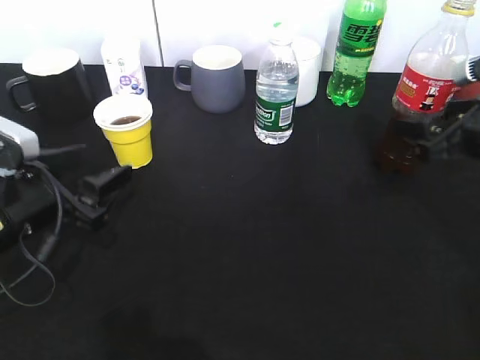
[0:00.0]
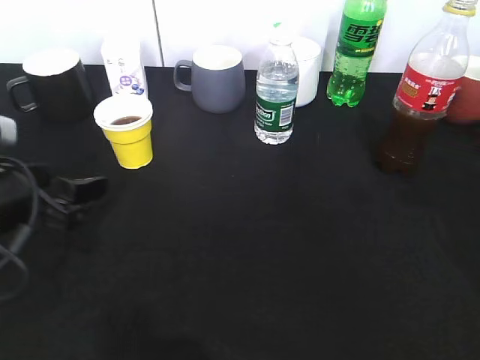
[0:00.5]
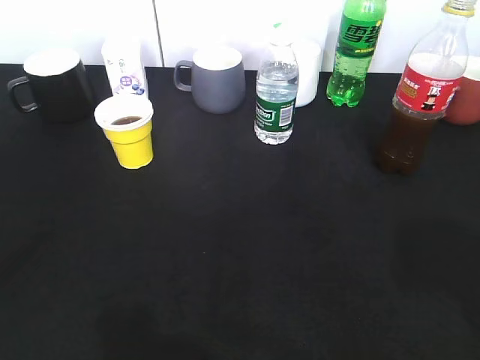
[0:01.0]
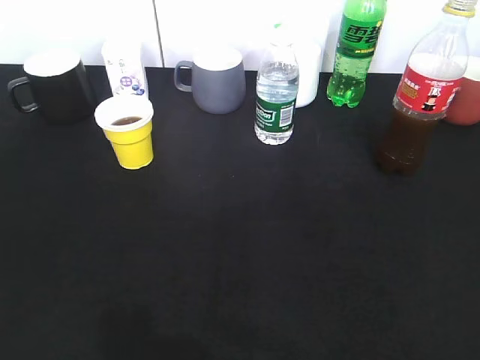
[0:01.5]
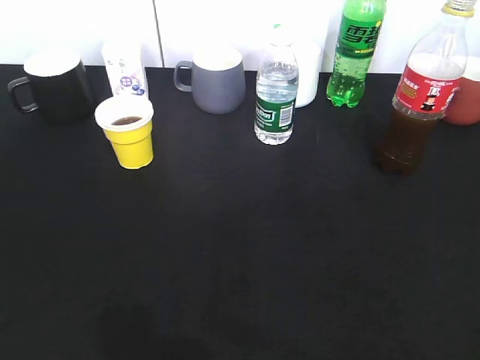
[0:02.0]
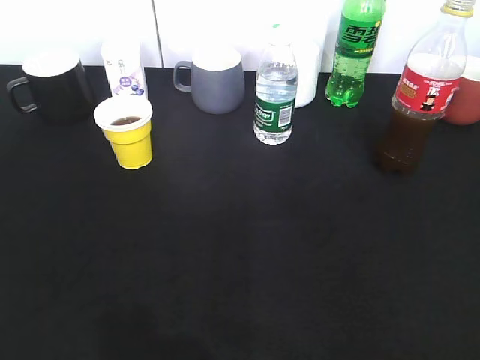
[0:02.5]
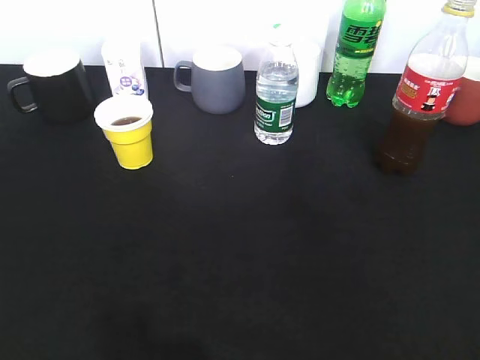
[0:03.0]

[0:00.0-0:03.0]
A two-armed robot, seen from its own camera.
0:00.0 to 0:01.5: The right gripper heads backward, covering about 30 cm; the left gripper moves backward, upward and to the left, approximately 30 cm.

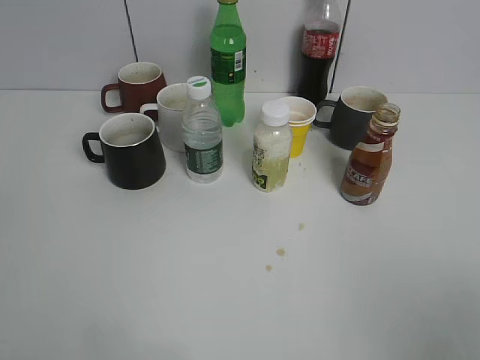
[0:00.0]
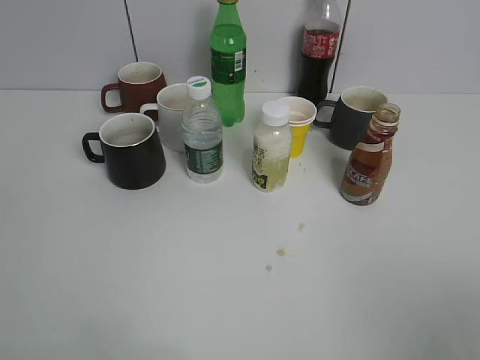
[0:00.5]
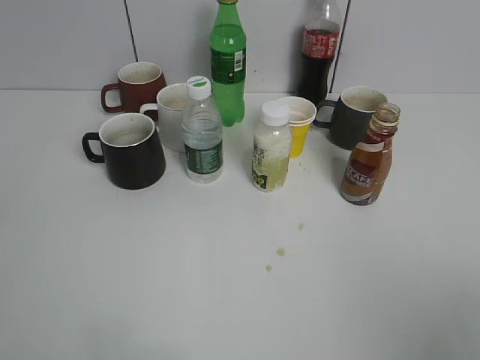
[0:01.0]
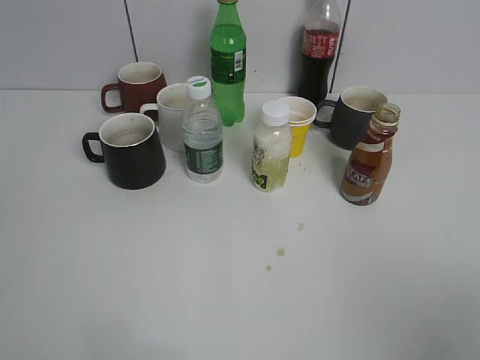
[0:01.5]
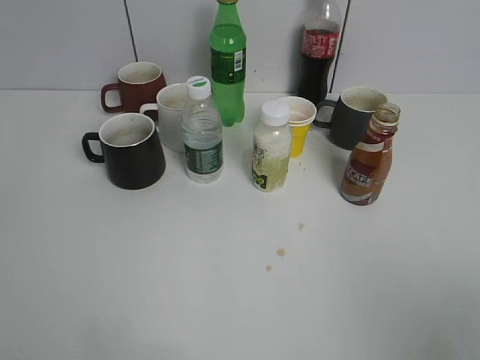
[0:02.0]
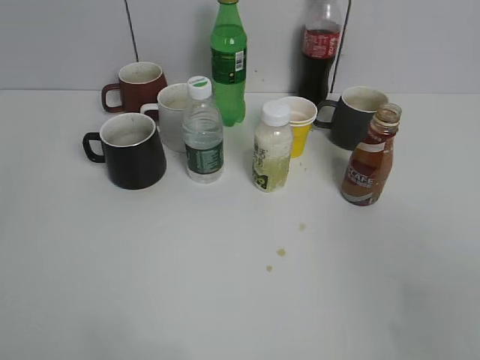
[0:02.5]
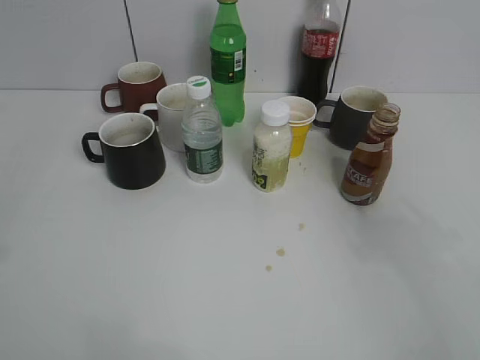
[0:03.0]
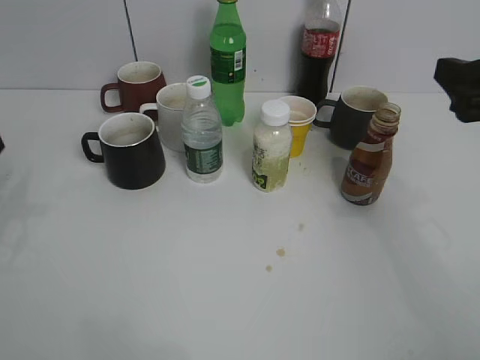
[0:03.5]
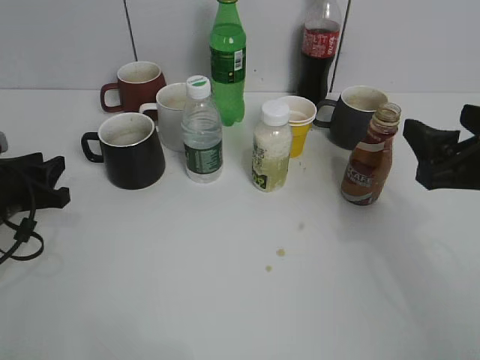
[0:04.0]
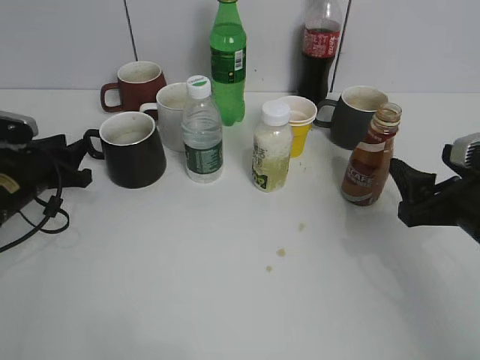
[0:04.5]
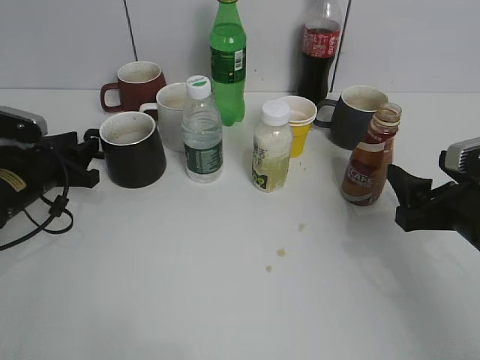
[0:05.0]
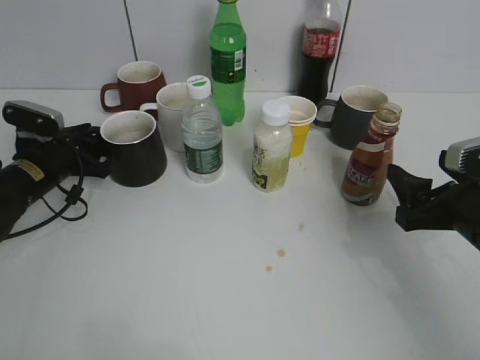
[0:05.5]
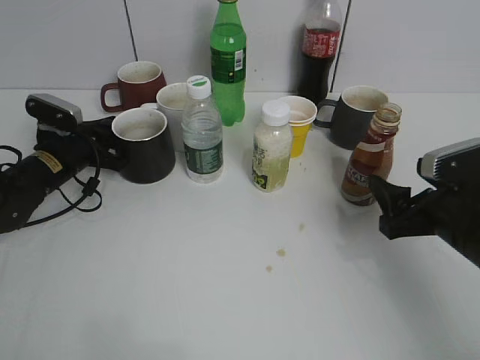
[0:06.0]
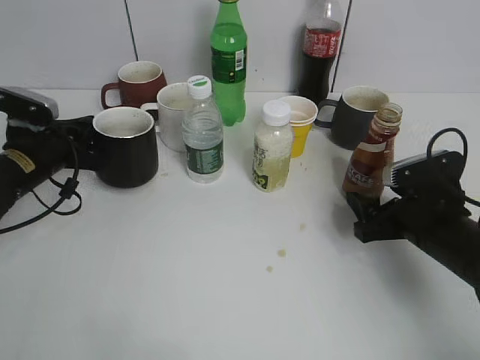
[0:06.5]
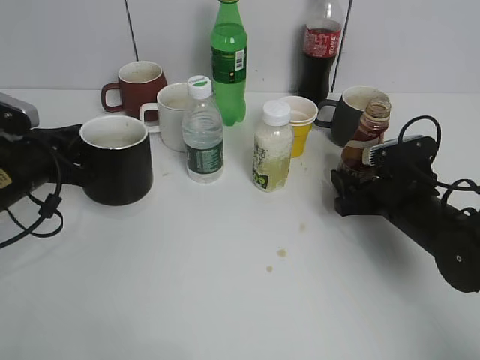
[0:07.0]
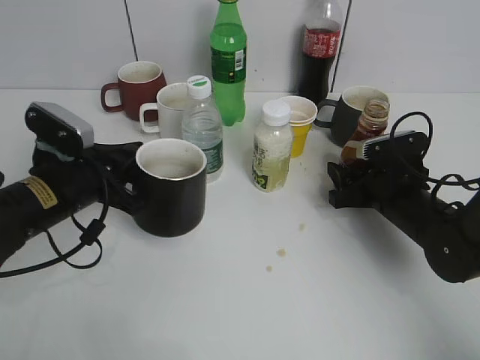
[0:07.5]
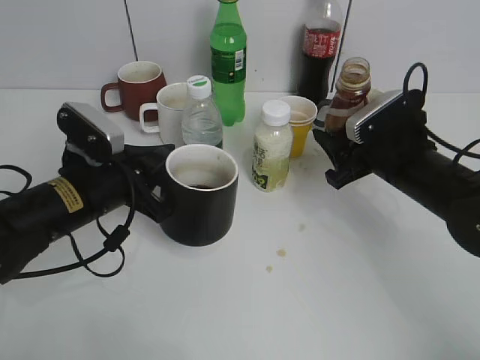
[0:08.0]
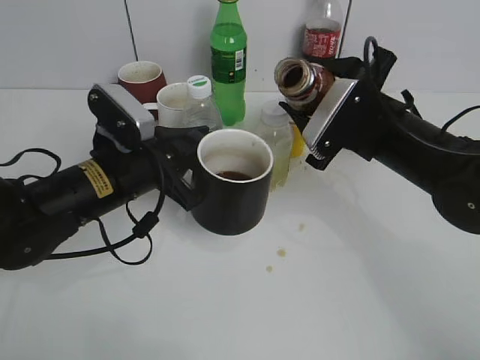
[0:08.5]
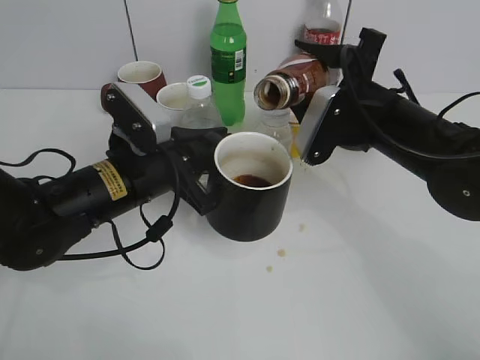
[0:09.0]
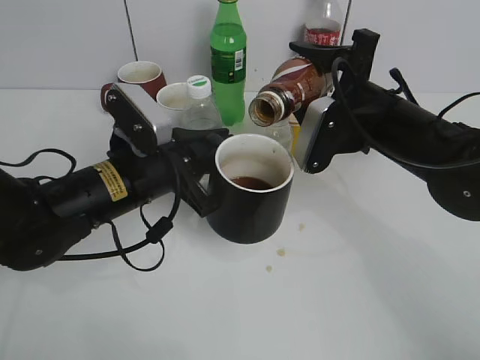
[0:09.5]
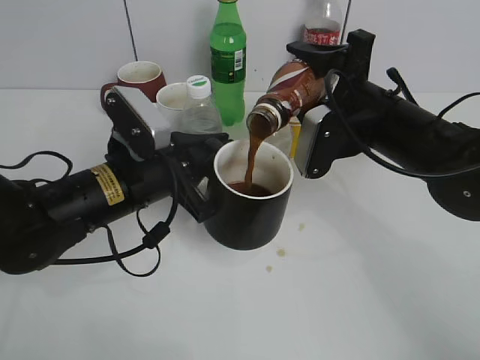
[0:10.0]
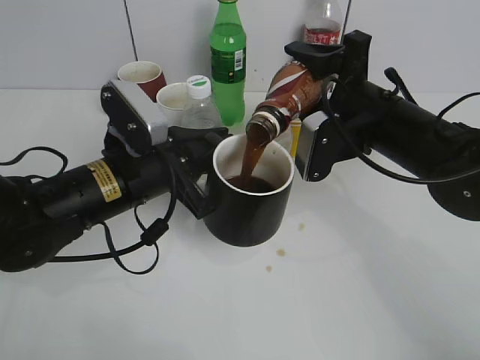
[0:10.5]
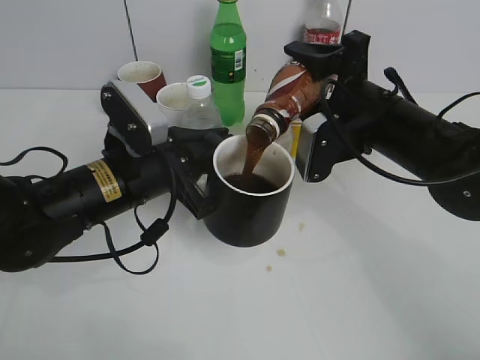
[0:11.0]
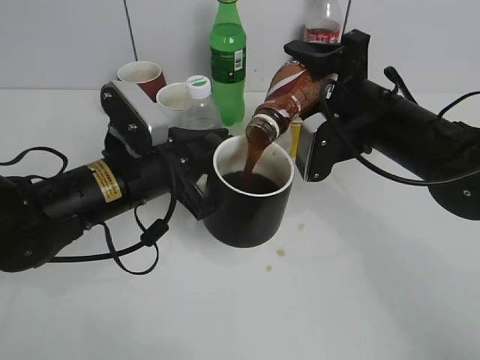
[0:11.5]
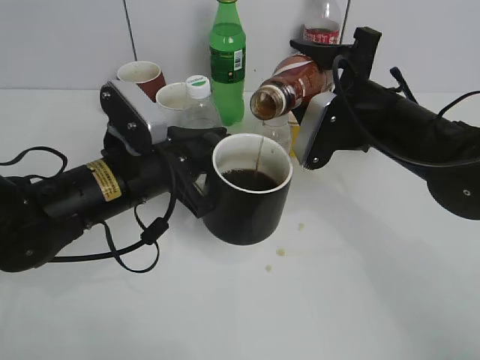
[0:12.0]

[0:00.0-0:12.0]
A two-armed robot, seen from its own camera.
Step, 0:02.5 to 0:05.5: Grasp the black cup with left gripper.
Step, 0:06.5 to 0:07.5: Lift the black cup with left gripper.
0:02.0 to 0:04.0: The left gripper is displaced forward and downward by about 35 cm; the right gripper goes approximately 20 cm forward.
0:04.0 to 0:06.0: The right gripper goes some 10 cm downward; the left gripper shifts approximately 10 cm forward, and closes its fingers.
0:06.0 to 0:08.0: The left gripper moves backward, to the right and upward, roughly 15 cm, while the right gripper moves forward, about 10 cm, and closes.
0:08.0 to 0:10.0: The left gripper goes roughly 5 cm to the right; the right gripper shifts roughly 5 cm upward.
0:10.0 to 0:12.0: The grippers stay close to where they were, moving slightly.

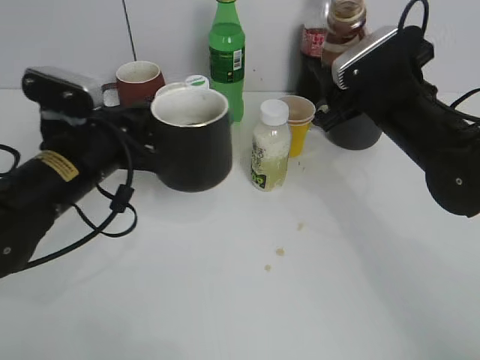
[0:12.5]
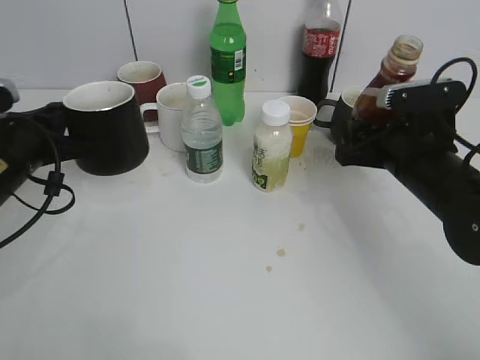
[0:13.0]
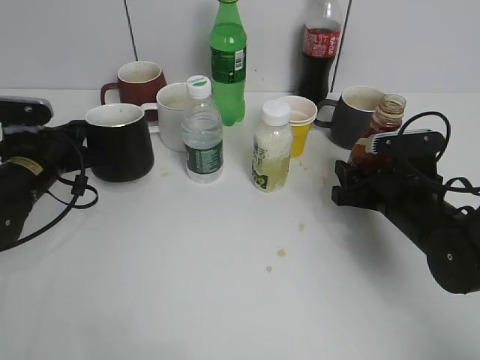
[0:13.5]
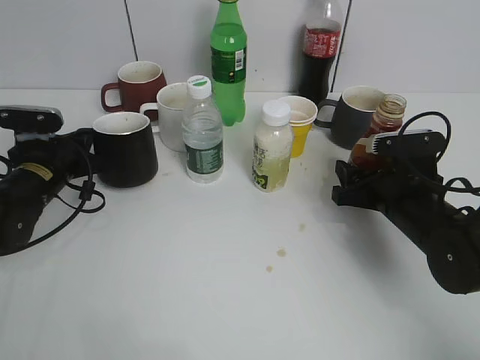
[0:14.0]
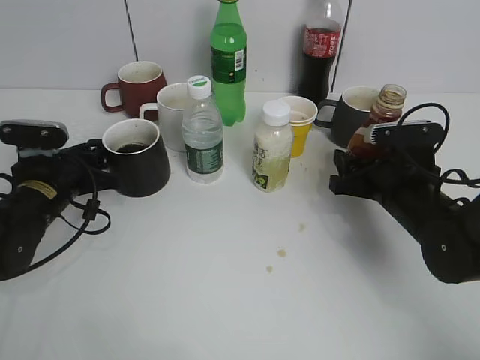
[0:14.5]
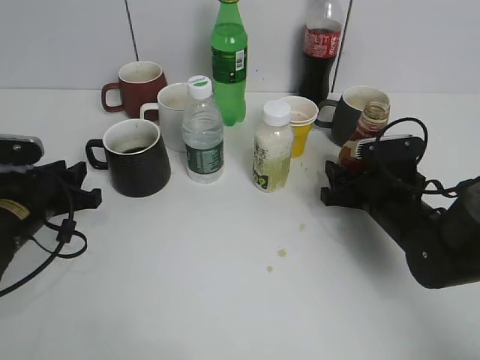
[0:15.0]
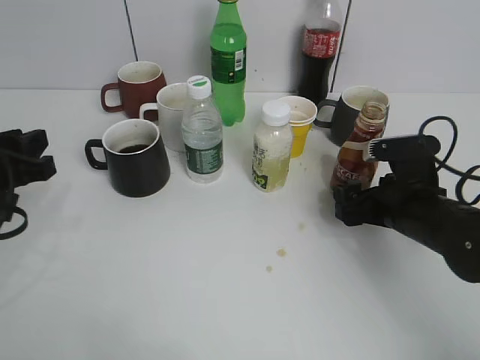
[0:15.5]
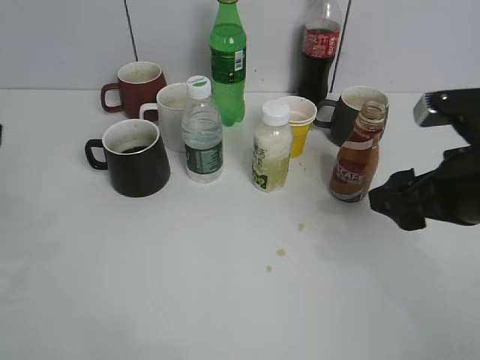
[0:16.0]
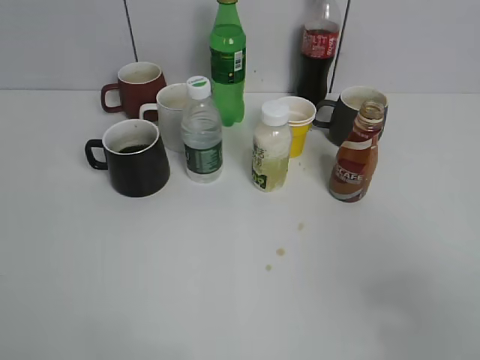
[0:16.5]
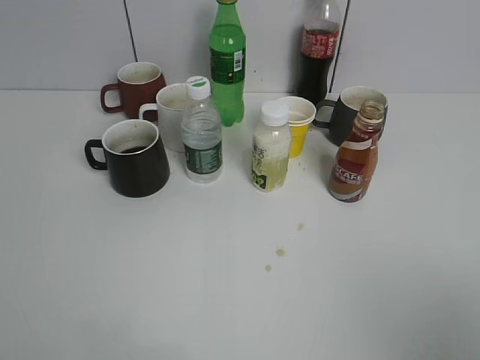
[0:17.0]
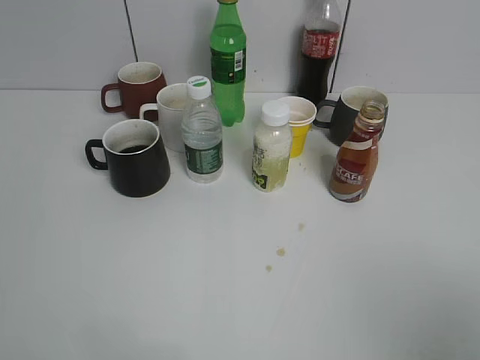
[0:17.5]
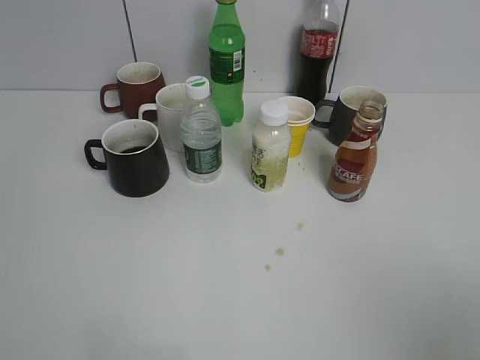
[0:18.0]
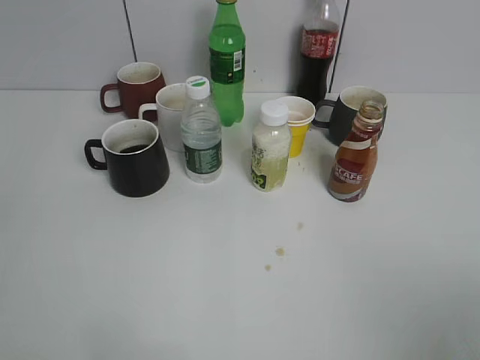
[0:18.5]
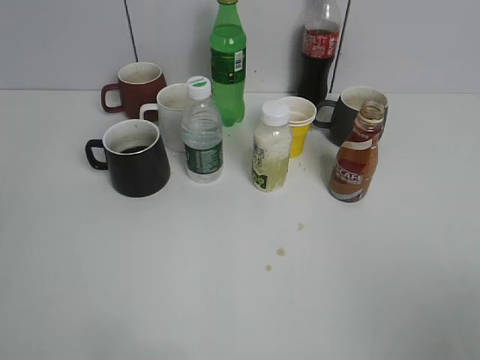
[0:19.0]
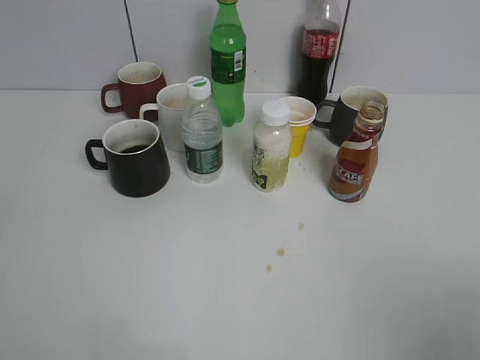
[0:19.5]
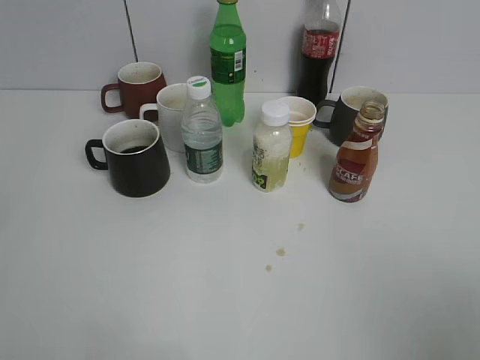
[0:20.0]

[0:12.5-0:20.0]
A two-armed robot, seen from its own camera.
Step, 0:12.5 to 0:15.5: Place the coffee bottle on the table with right gripper.
0:12.5 to 0:14.5: The left gripper shifts roughly 10 cm downward and to the left, and opens up. Meanwhile the right gripper goes approximately 10 cm downward.
0:14.5 to 0:16.5: Both grippers move backward and upward, about 35 cm. The right gripper opens its fingers.
0:18.0 to 0:20.0: There are only small adjustments of the grippers.
